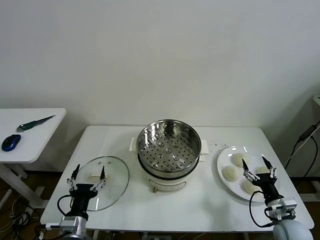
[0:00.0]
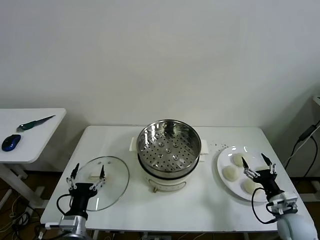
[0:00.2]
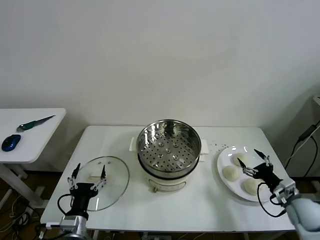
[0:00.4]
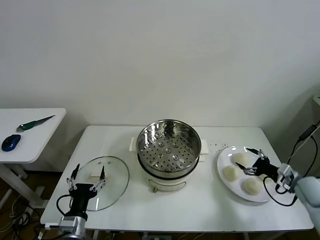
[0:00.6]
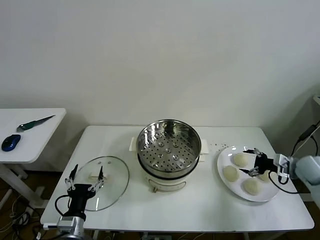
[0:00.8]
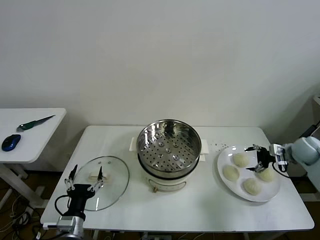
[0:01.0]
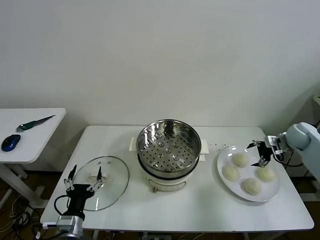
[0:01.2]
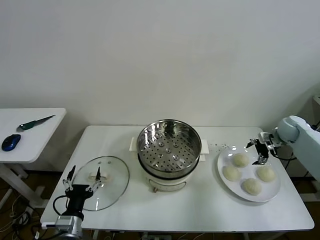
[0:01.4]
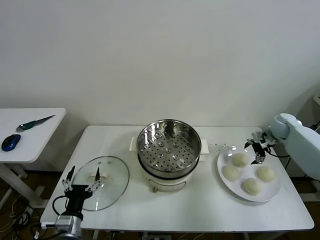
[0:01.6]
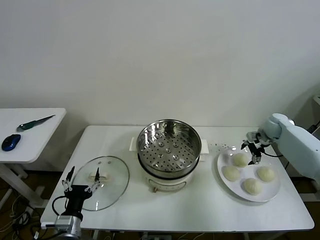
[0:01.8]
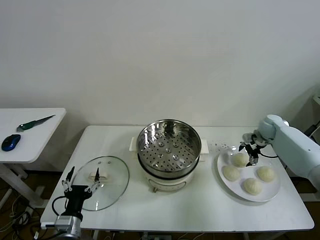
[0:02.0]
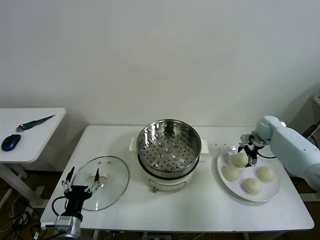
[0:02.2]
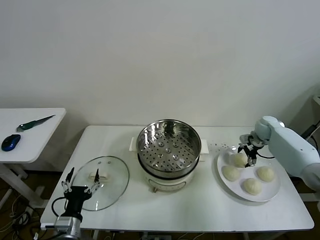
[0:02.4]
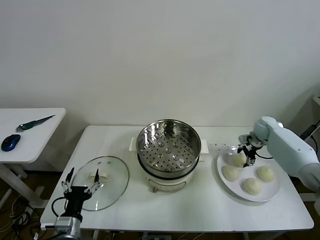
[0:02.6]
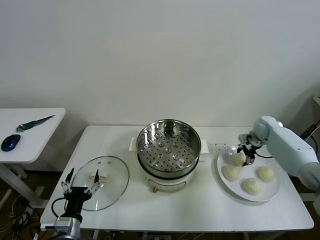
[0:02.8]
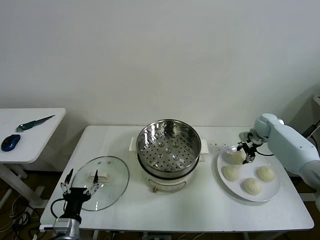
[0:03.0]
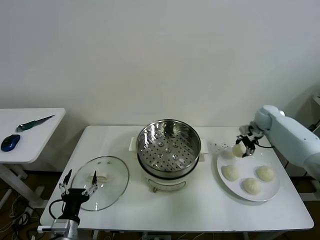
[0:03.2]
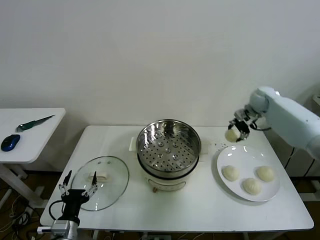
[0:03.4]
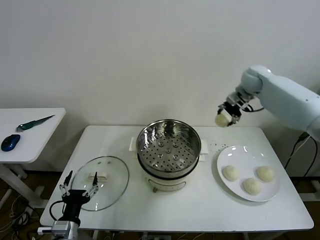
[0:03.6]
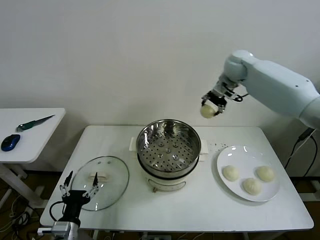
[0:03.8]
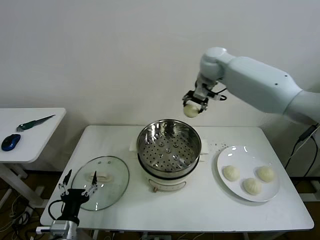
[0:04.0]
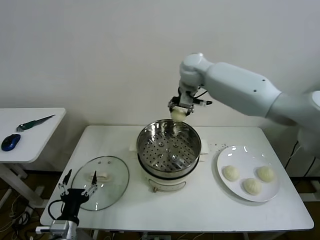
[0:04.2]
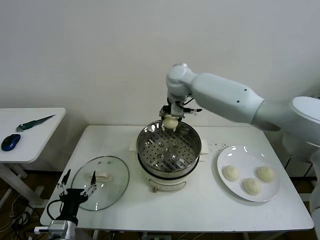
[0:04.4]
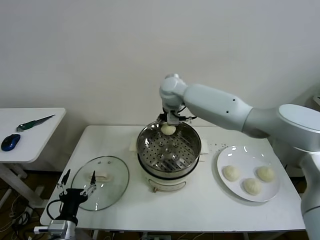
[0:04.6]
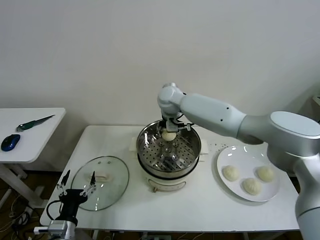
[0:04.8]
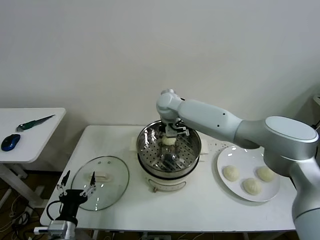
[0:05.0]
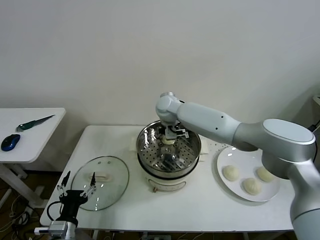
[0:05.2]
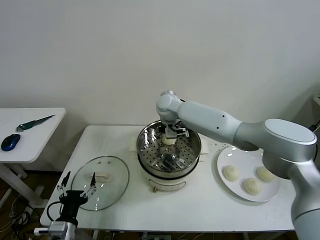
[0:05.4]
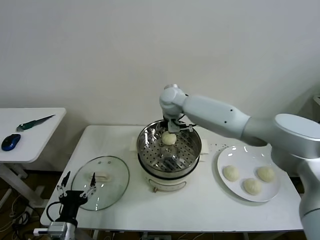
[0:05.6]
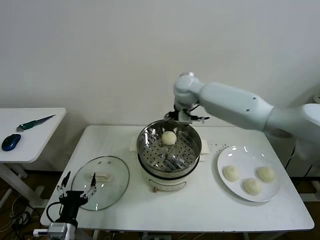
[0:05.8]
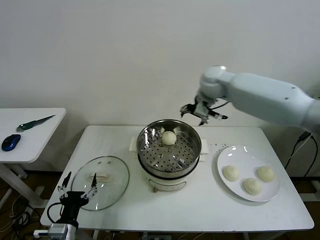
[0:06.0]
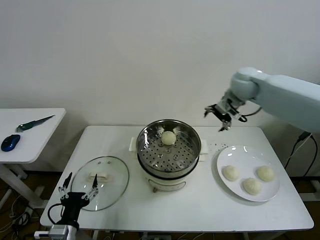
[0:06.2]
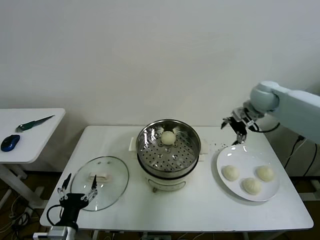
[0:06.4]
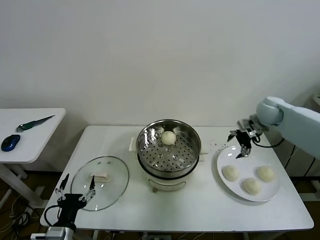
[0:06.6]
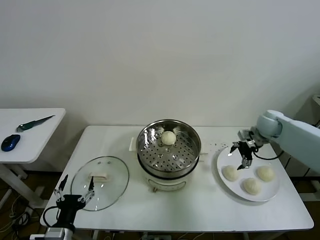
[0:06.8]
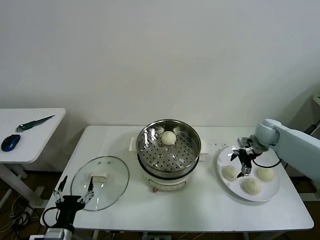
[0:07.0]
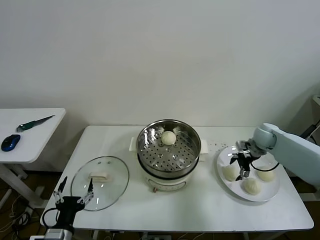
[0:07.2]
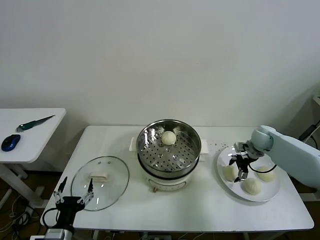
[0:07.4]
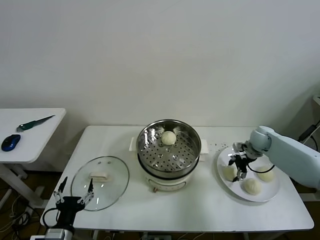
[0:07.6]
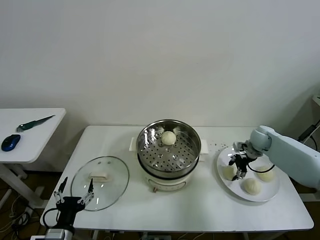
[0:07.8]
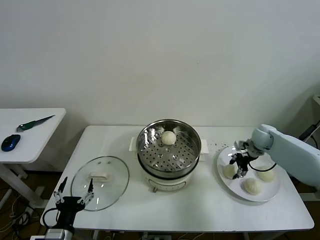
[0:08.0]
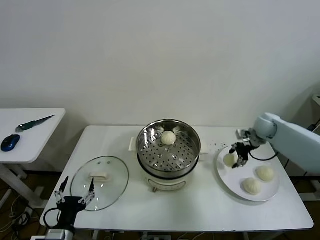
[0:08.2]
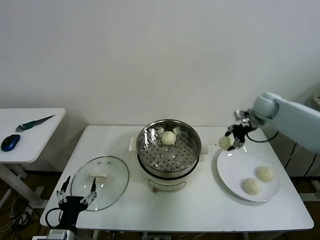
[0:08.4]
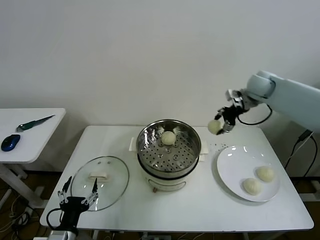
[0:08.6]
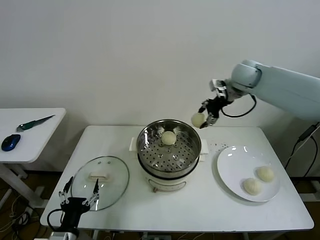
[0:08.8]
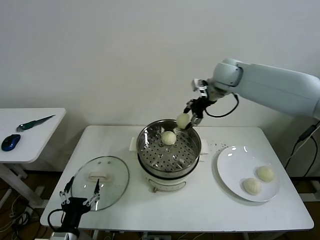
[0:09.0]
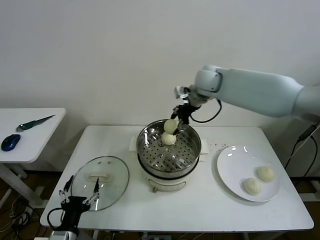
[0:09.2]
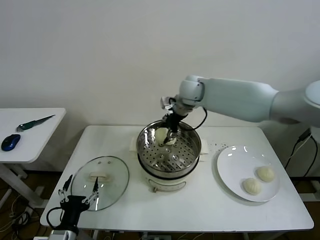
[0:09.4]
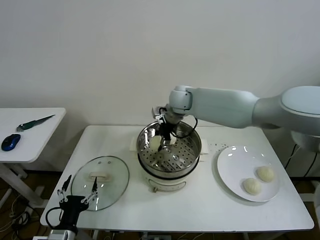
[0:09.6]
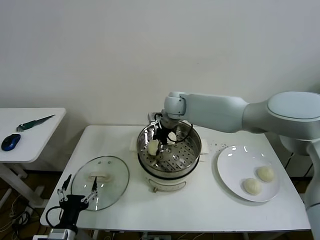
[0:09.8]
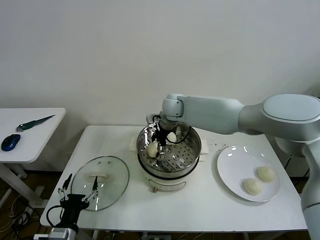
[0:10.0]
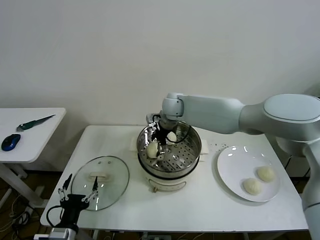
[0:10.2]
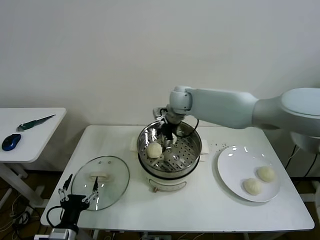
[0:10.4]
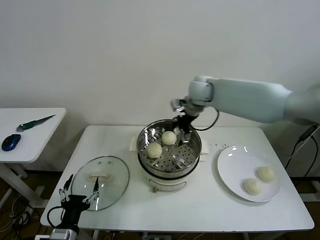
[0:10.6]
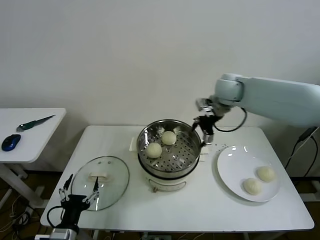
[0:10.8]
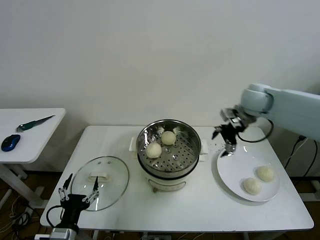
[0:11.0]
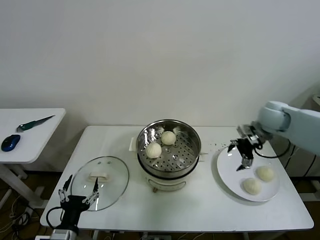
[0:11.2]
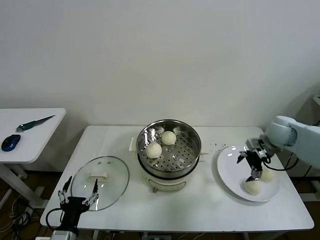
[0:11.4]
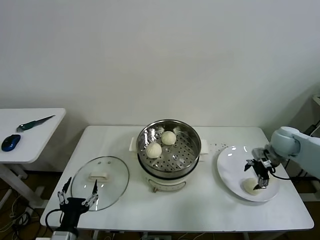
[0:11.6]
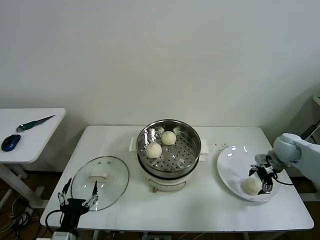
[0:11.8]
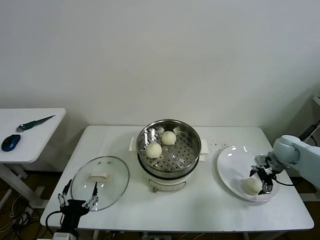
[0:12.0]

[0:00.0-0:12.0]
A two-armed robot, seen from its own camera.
Task of the whole recording: take steamed baozi put them in steamer then cover it.
Step, 0.0 to 2.6 s: Grasp the baozi in the plate with right gripper.
Step, 2.8 to 5.2 s: Place the baozi on the steamer with right gripper.
Step, 5.4 to 7.6 s: Grasp the baozi in the plate with right gripper.
Step, 7.8 to 10.2 s: Place the baozi on the steamer with right gripper.
1.6 to 3.0 s: The right gripper closes its fingers.
3.0 to 4.4 s: The right gripper heads to the left, covering roughly 40 cm.
4.4 to 6.0 s: The right gripper moves to the right, approximately 20 cm, and opens up.
6.0 to 7.6 s: The right gripper travels downward and to the right by some 30 cm, and closes up.
7.6 to 9.0 s: The right gripper travels upward and to the left by about 35 cm.
9.0 to 10.4 s: The right gripper shifts about 5 cm to the left, and opens up.
10.4 to 12.0 s: The right gripper goes some 40 cm to the right and downward.

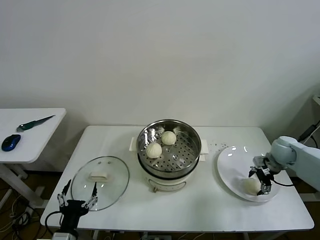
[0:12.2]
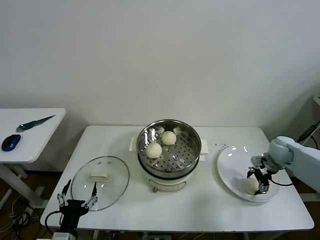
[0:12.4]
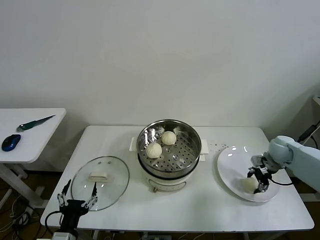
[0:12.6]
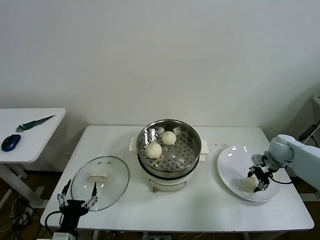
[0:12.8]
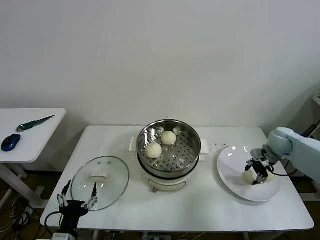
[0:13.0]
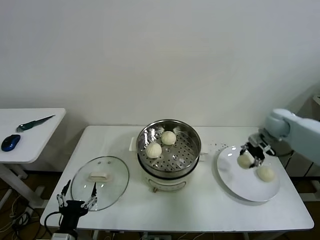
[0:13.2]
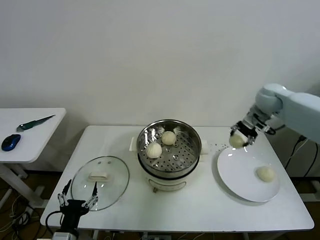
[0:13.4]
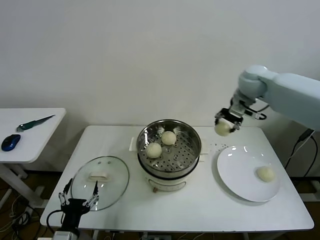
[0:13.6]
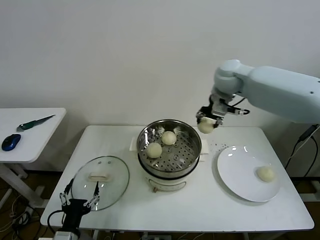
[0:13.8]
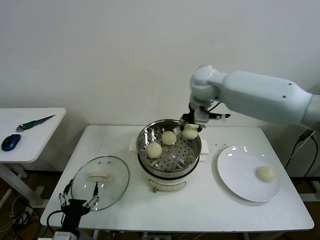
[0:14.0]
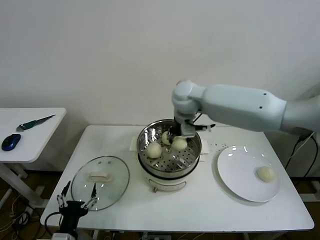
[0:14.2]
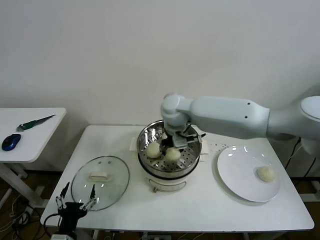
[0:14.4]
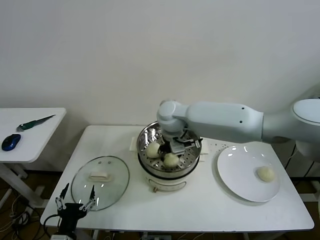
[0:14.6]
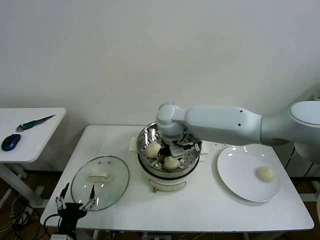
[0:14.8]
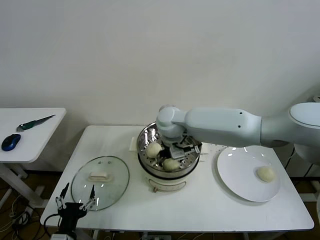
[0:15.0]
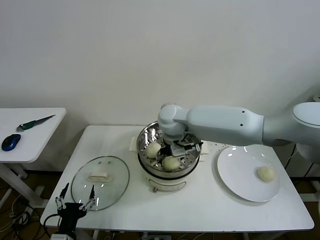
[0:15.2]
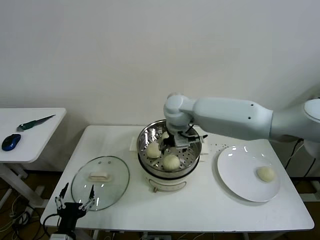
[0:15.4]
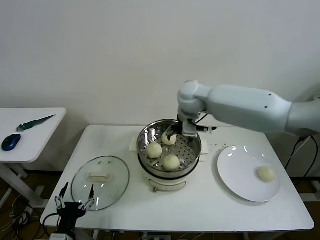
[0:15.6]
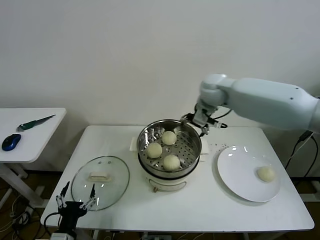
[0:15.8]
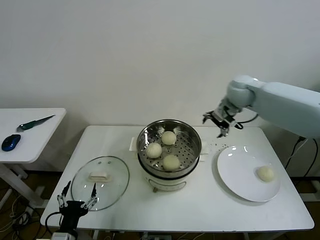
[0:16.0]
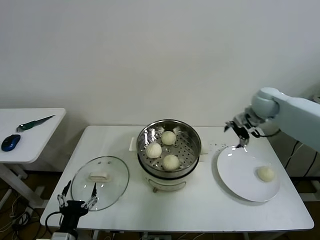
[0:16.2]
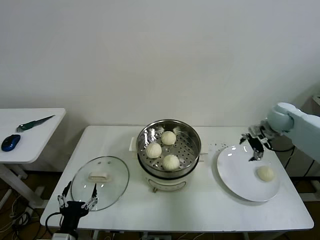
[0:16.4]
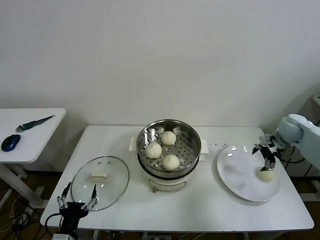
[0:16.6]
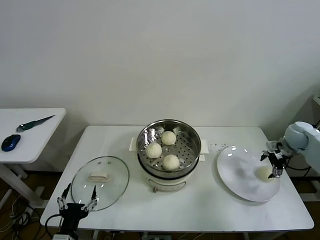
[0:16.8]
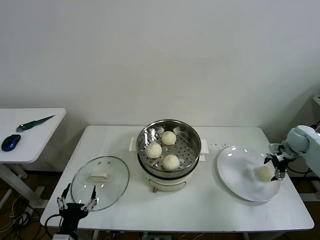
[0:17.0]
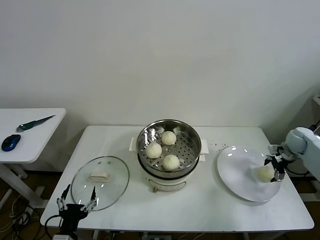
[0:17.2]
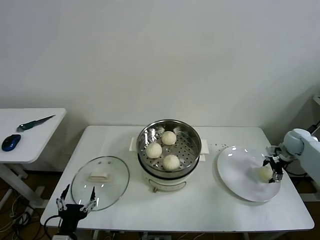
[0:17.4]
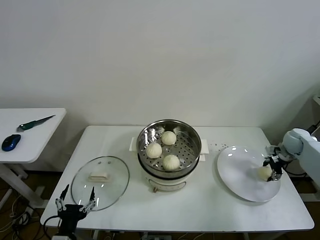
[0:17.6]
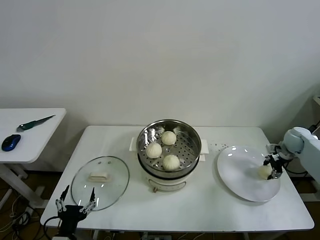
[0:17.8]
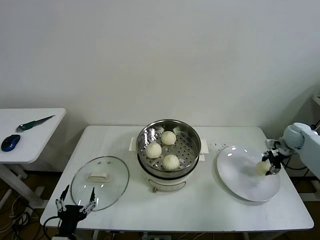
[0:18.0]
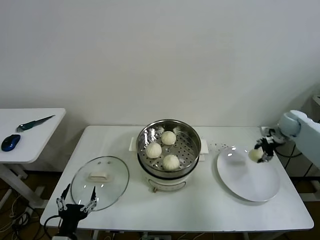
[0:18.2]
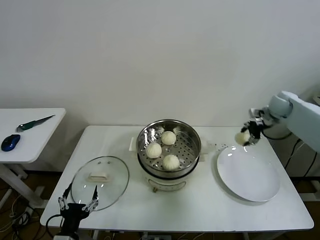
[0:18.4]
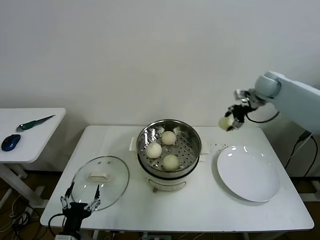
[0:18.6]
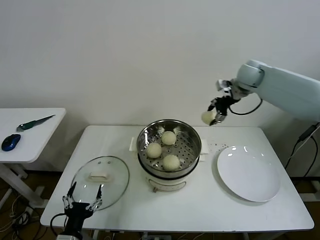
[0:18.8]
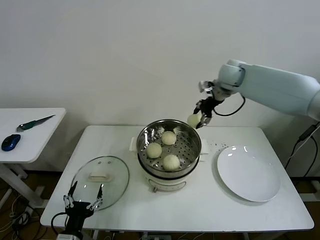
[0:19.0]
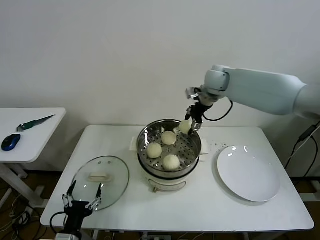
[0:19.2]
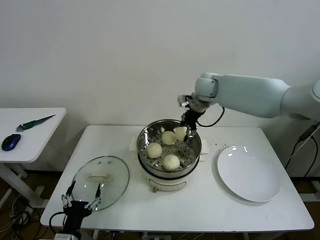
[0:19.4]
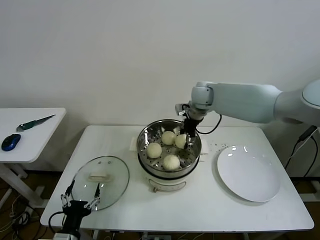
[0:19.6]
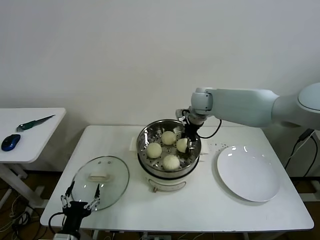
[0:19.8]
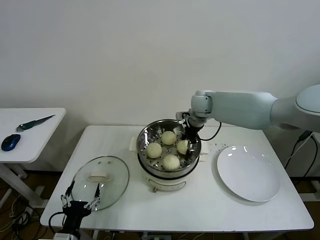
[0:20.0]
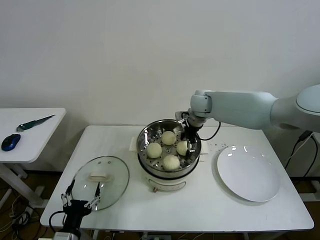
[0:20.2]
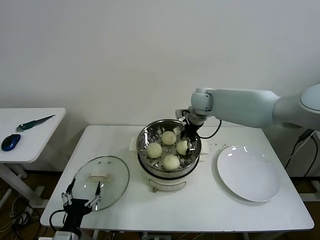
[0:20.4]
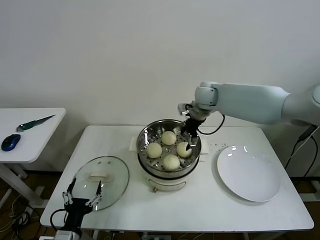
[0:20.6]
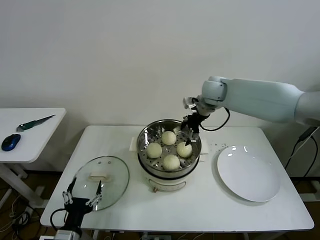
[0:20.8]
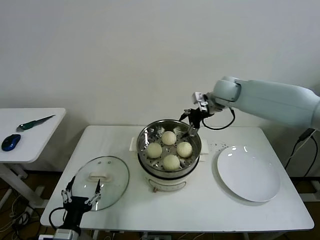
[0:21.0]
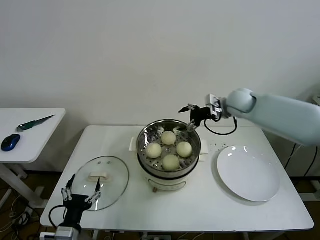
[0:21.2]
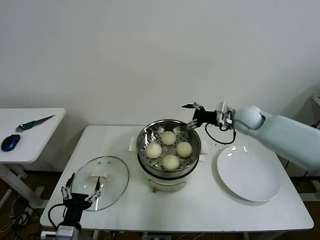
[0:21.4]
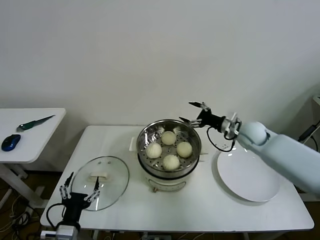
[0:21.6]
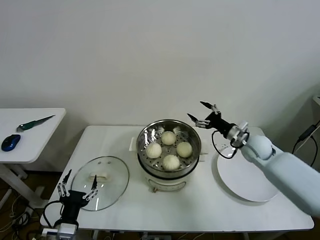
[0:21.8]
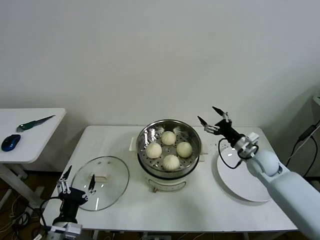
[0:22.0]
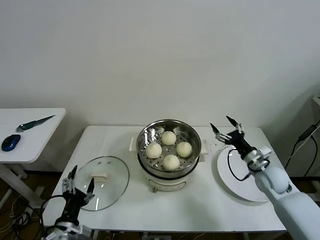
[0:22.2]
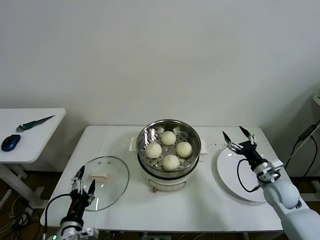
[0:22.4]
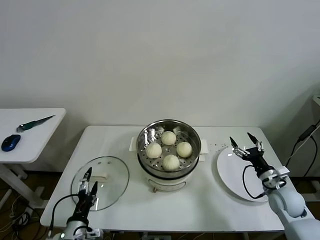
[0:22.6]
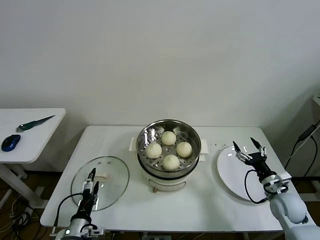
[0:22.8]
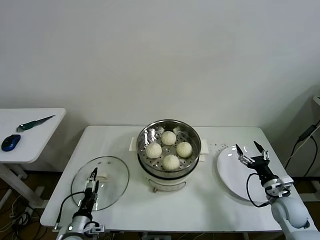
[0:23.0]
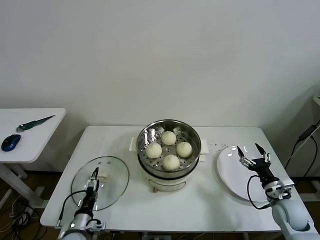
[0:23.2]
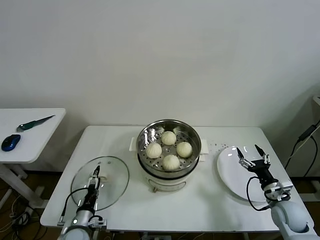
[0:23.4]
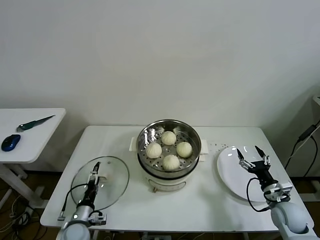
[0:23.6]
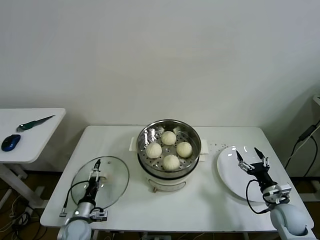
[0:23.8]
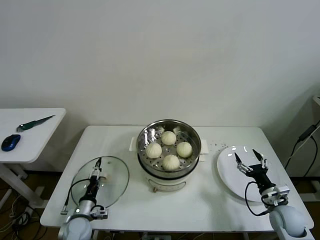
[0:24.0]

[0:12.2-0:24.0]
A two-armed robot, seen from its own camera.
Task of the whole recording: take steamed baozi put them in steamer then cover it.
Step, 13.0 to 15.0 s: Place the baozi on the steamer with right gripper.
Step, 15.2 to 17.6 s: Grasp the baozi in the plate with right gripper.
Step, 17.8 to 20.2 s: Place the baozi on the steamer with right gripper.
12.2 to 13.6 s: The right gripper goes roughly 35 cm upward and to the left, and closes its fingers.
13.6 to 15.2 s: The right gripper heads to the left and downward, covering approximately 20 cm, and opens.
15.2 to 16.6 s: The right gripper goes roughly 50 cm to the right.
16.6 to 18.2 s: The right gripper travels forward by roughly 5 cm, and closes.
18.2 to 19.6 s: The right gripper goes approximately 35 cm to the left.
19.6 to 21.0 s: The right gripper moves to the right, approximately 10 cm, and opens its fingers.
21.0 to 22.6 s: The left gripper ends up some 5 cm from where it was. Meanwhile the right gripper travels downward, backward and to the right by roughly 40 cm.
22.6 to 24.0 s: The left gripper shifts some 15 cm forward and downward; the right gripper ends up roughly 5 cm from where it was.
